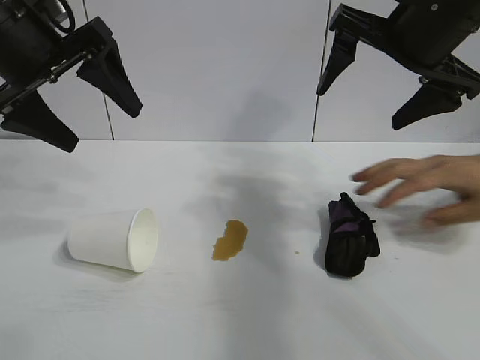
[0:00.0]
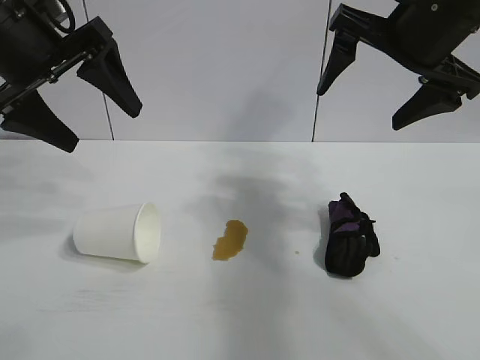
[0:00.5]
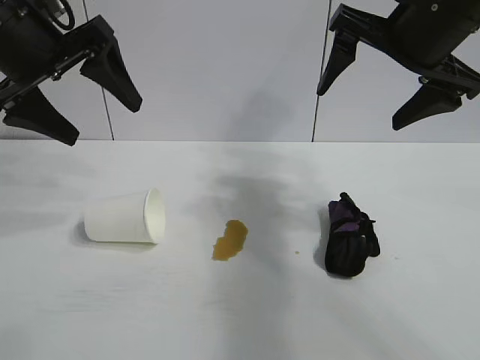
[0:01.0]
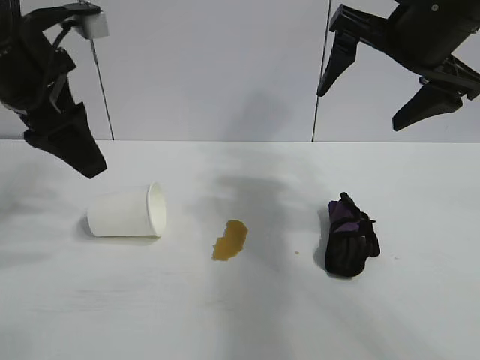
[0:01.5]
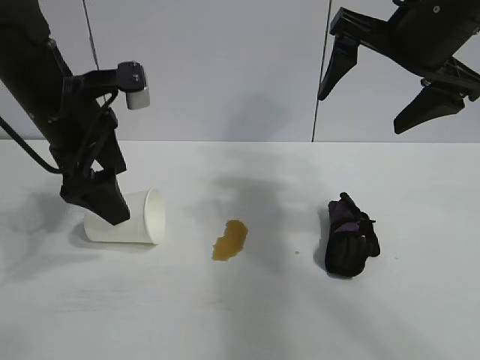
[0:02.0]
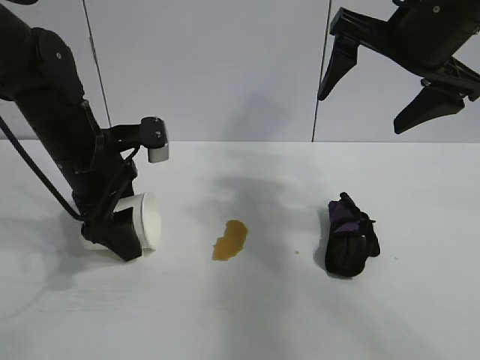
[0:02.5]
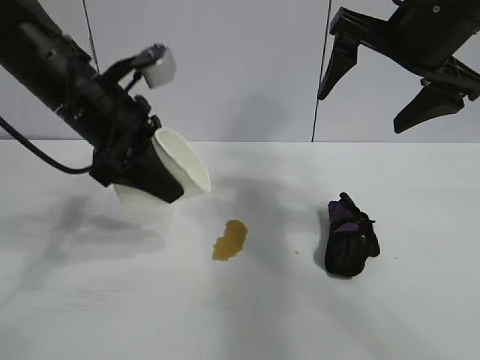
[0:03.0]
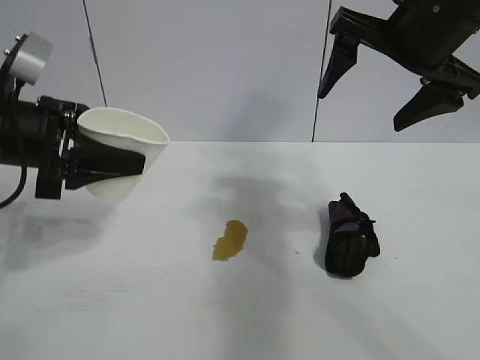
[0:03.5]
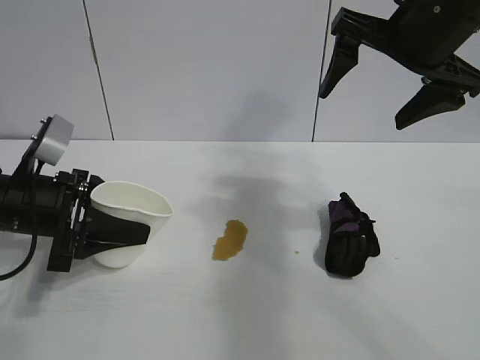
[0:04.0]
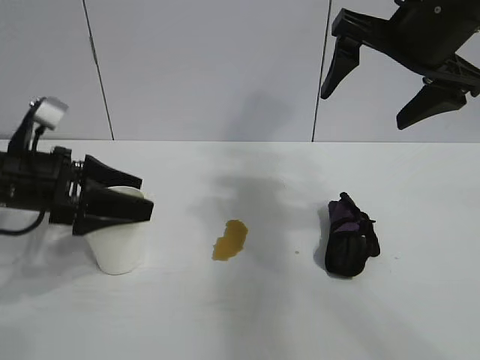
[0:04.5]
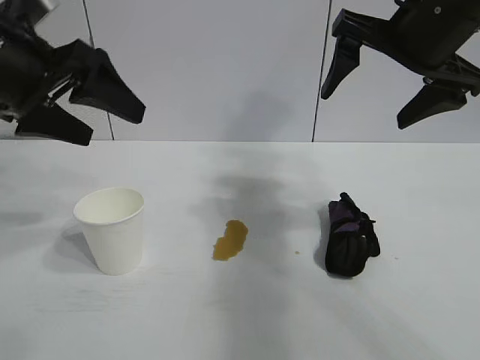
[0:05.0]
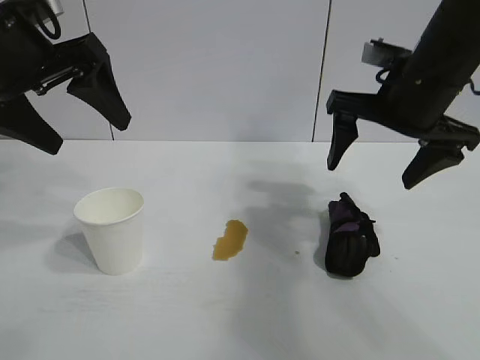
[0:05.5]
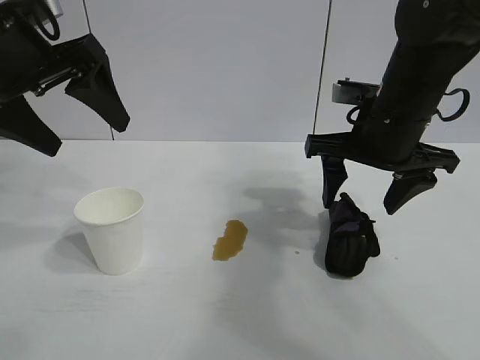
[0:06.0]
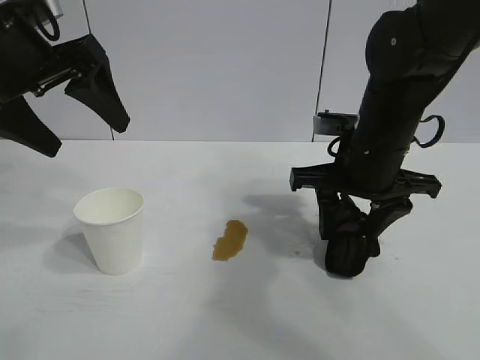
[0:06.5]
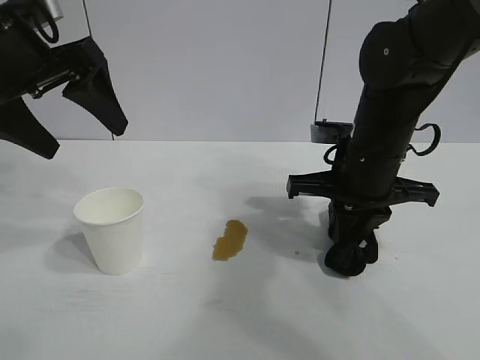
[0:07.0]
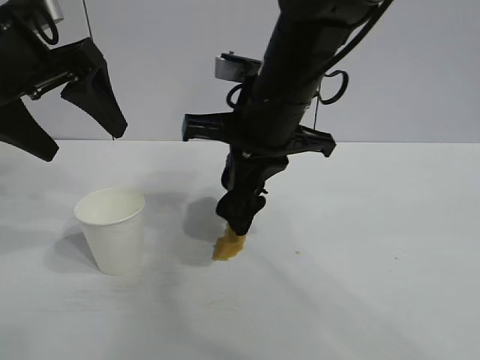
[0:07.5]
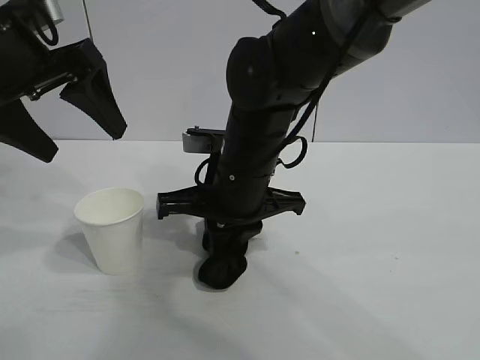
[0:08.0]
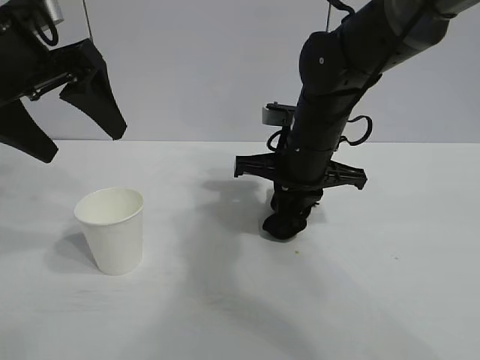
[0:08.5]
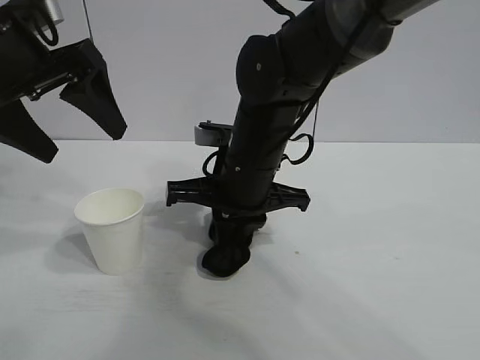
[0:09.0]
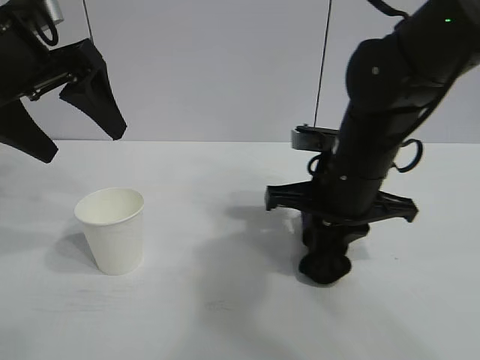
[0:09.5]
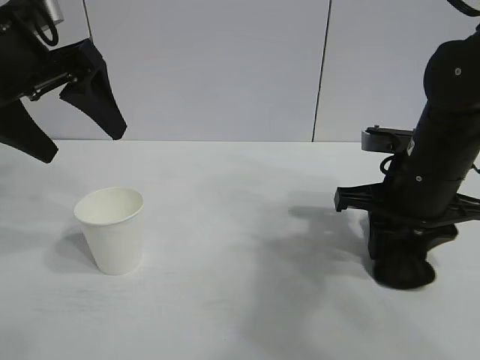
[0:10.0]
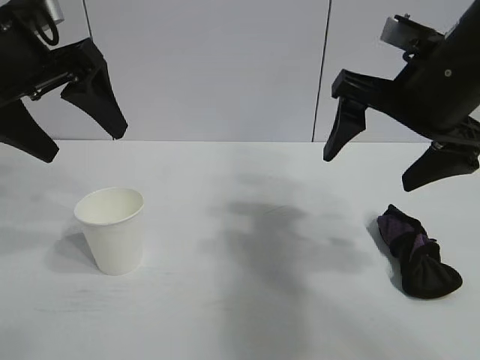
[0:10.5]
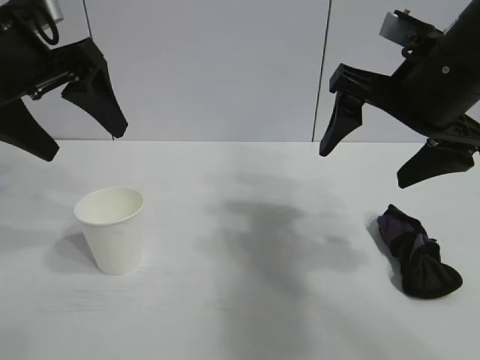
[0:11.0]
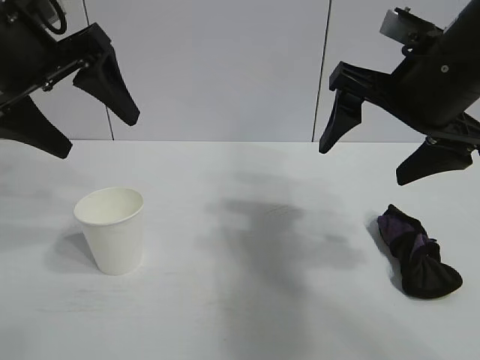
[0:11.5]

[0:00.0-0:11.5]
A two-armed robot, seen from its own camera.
Task of the whole recording: the left gripper pick up the fallen cup and place it upright, the right gripper grasp the black rag and wipe the stain on the table, the right gripper put the black rag back in its original position.
Step, 0:01.0 to 0:02.5: Grasp the paper cup with left gripper.
Step, 0:03.0 to 0:04.0: Stand the paper cup upright with left gripper.
Step, 0:05.0 to 0:06.5: Grasp the rag with right gripper.
Step, 0:07.0 to 0:09.5: Wipe the stains off the table with the rag with right gripper.
